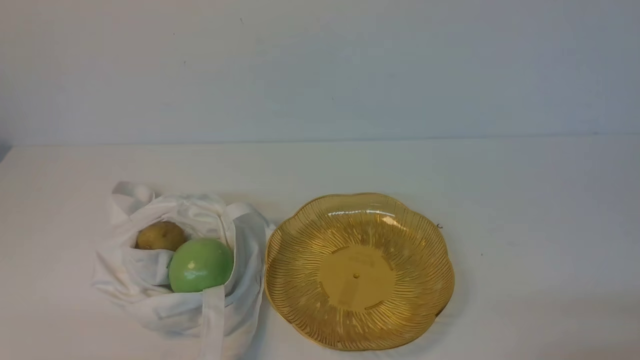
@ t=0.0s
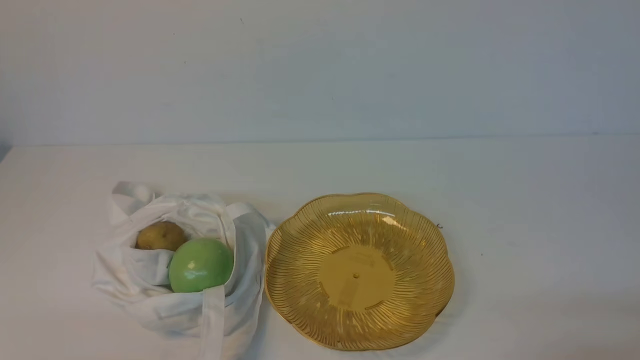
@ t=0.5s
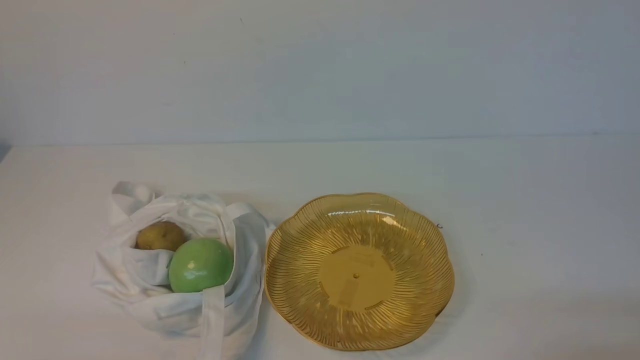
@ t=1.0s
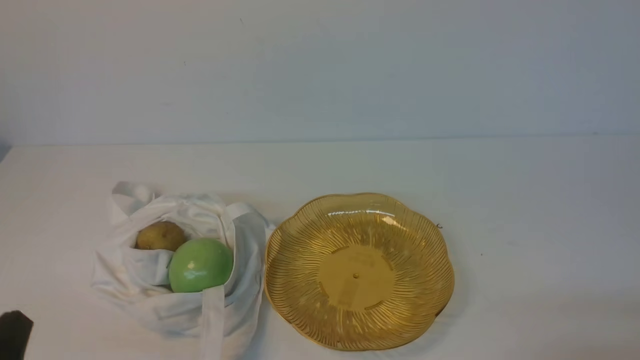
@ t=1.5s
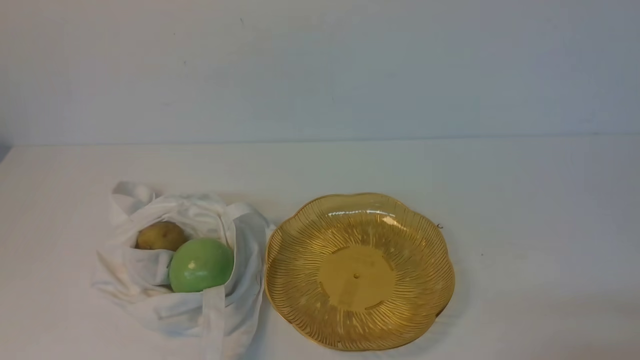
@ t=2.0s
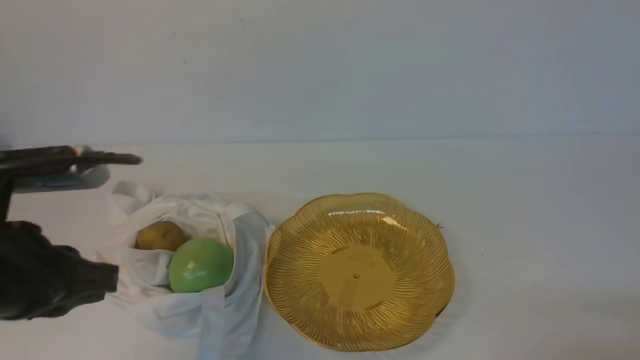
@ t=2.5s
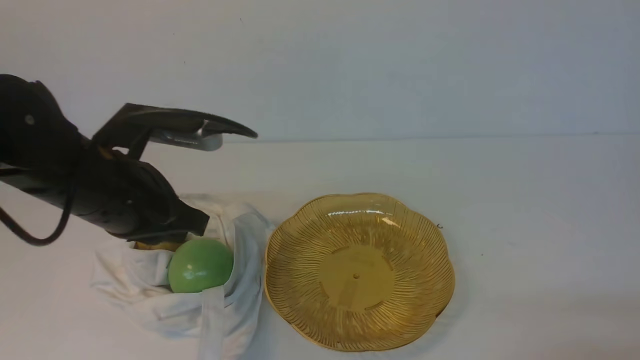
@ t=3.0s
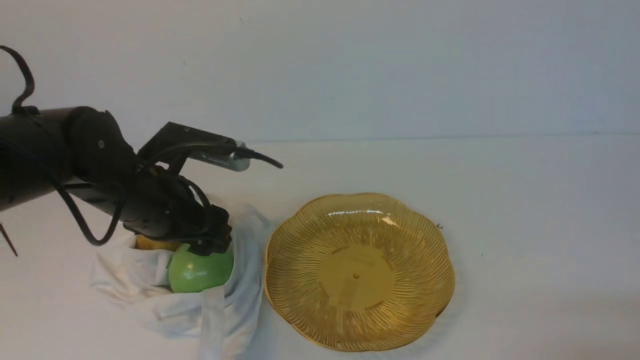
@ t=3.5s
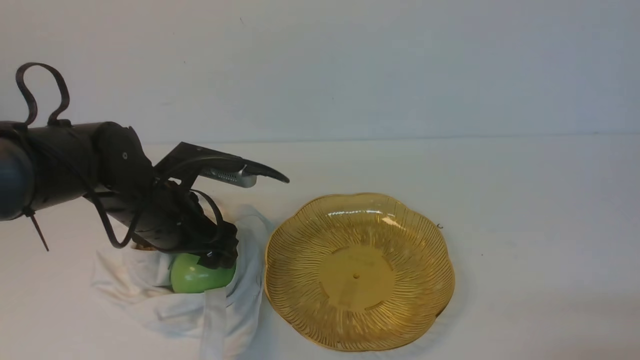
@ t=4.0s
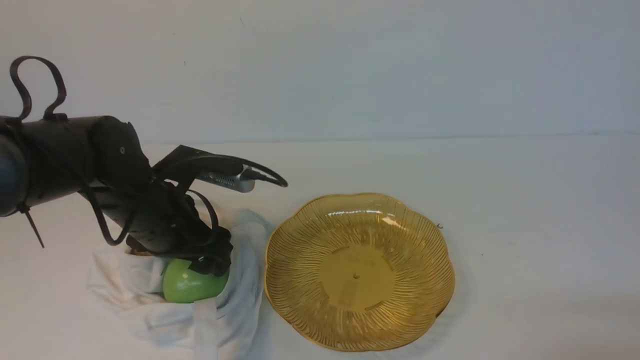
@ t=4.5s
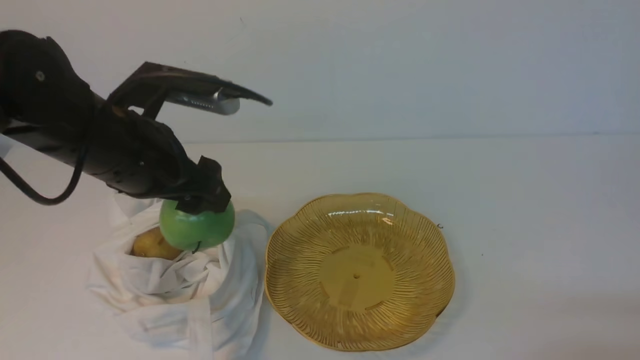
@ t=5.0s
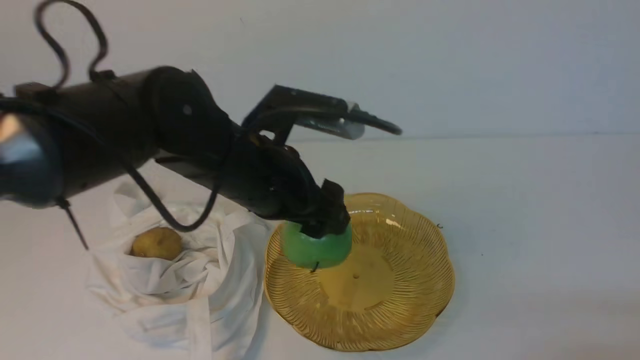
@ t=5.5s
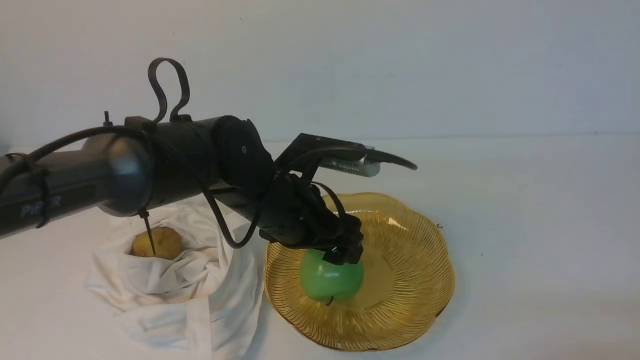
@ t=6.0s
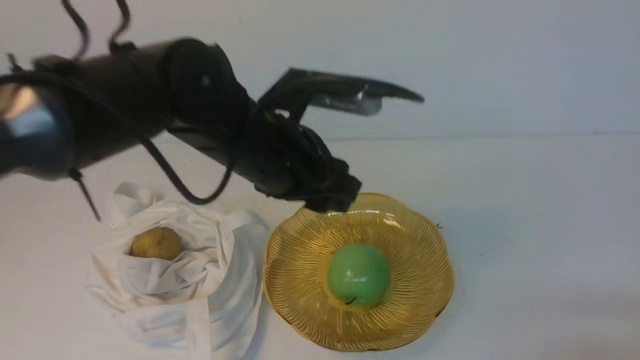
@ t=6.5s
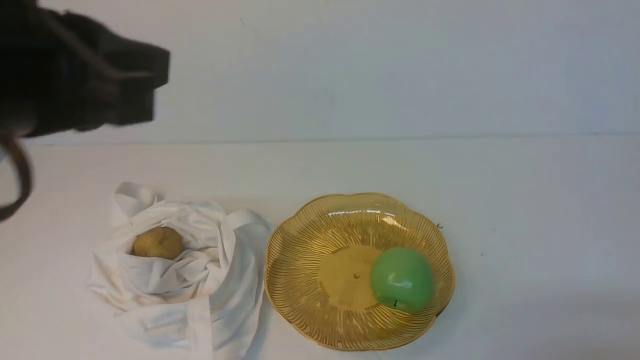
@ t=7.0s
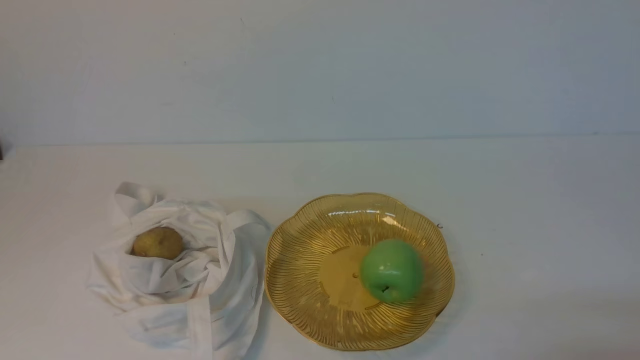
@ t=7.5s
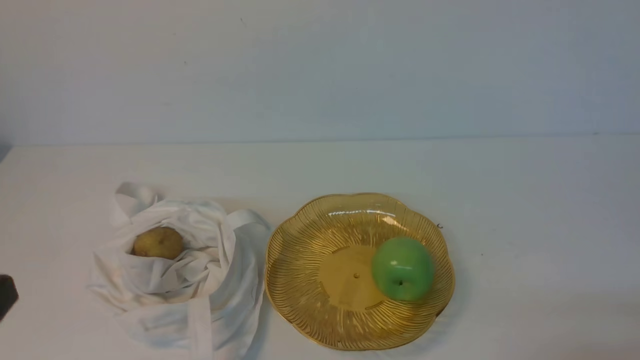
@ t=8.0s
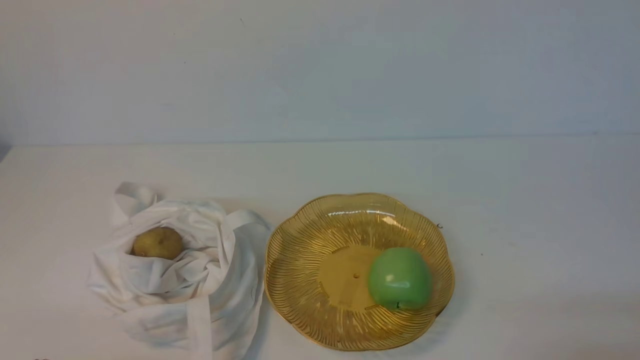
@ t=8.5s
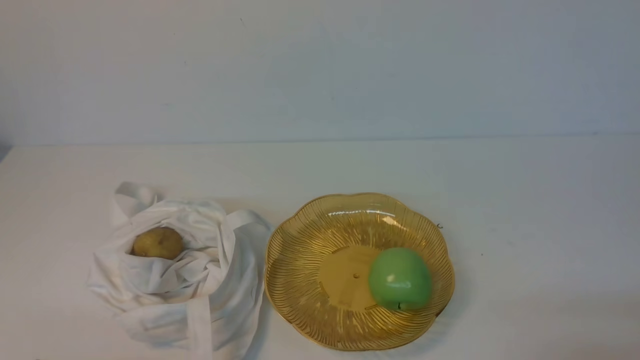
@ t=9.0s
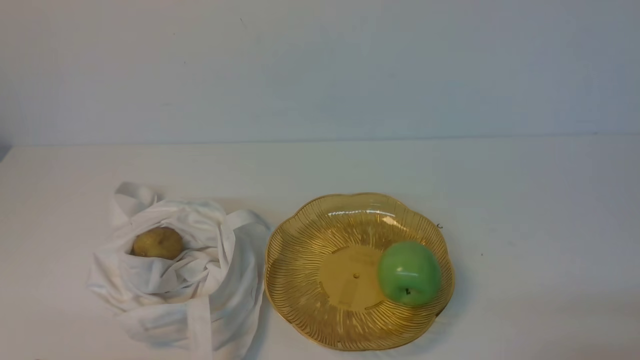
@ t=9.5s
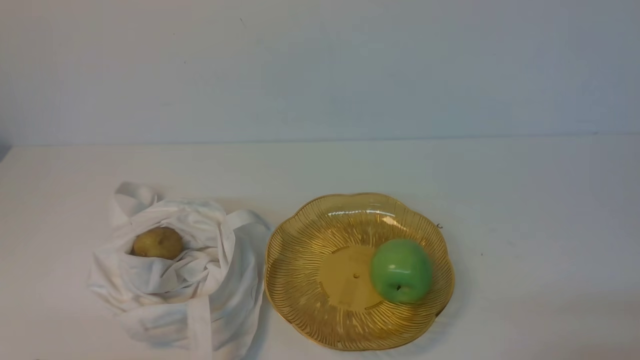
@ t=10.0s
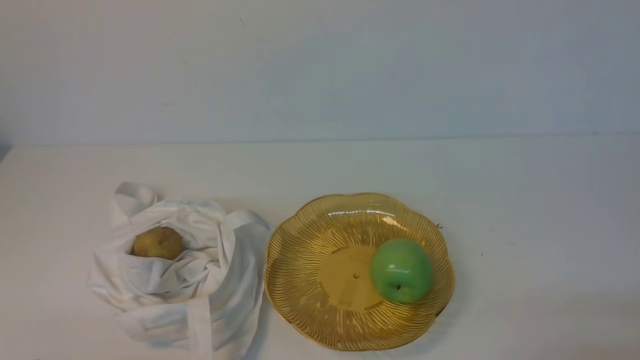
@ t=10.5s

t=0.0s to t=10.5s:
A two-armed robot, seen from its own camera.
Step, t=0.0s to t=4.5s: use the left arm to grab an apple from the bag.
Step, t=5.0s to t=6.0s: use the left arm to put the apple into the empty plate on the right.
t=2.0s to t=4.0s: The left gripper travels forward by approximately 25 cm, and opens.
t=4.0s to t=6.5s: The left gripper moves to the right and upward, approximately 15 cm.
t=6.5s to t=8.5s: The left gripper is displaced backward and to the left by about 30 cm, and closes.
